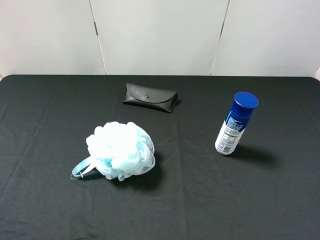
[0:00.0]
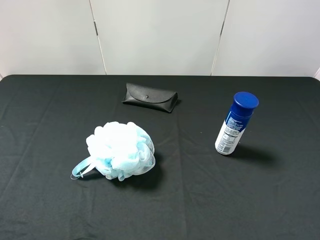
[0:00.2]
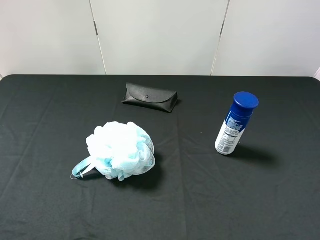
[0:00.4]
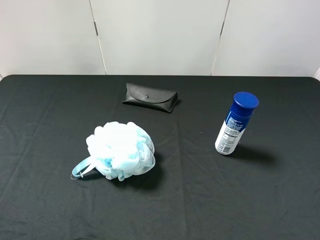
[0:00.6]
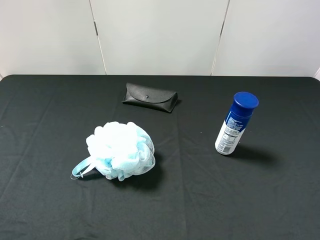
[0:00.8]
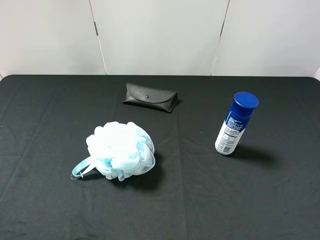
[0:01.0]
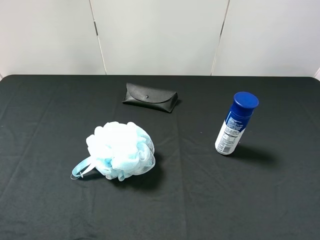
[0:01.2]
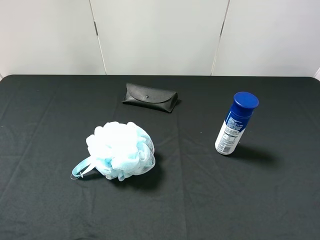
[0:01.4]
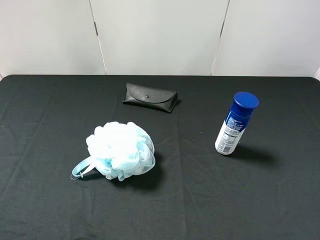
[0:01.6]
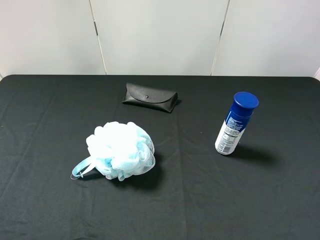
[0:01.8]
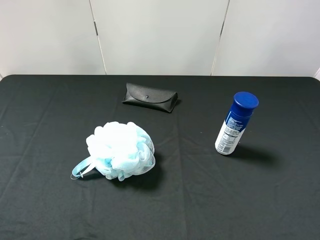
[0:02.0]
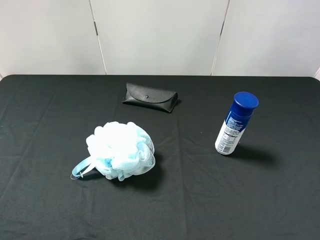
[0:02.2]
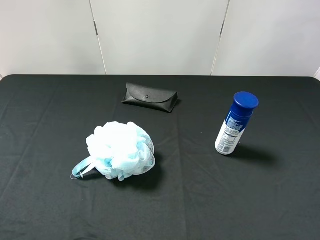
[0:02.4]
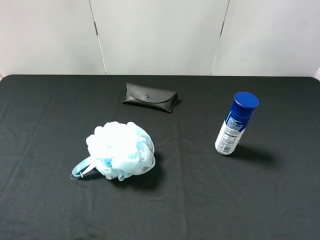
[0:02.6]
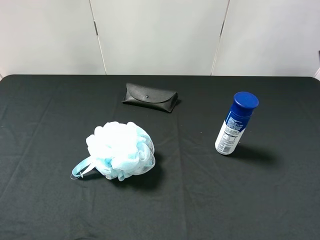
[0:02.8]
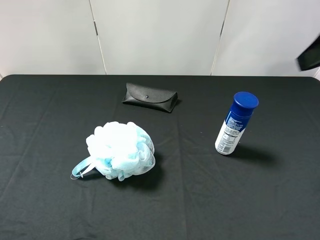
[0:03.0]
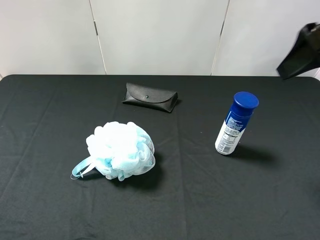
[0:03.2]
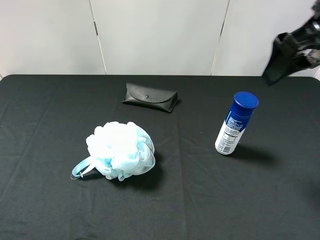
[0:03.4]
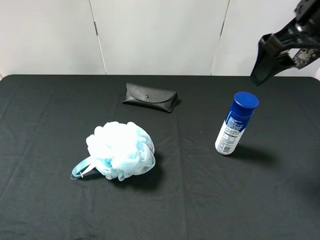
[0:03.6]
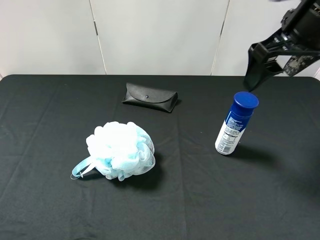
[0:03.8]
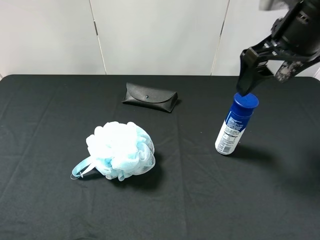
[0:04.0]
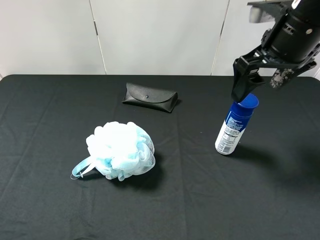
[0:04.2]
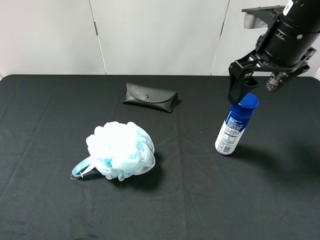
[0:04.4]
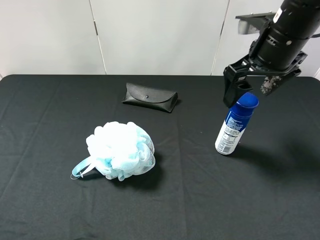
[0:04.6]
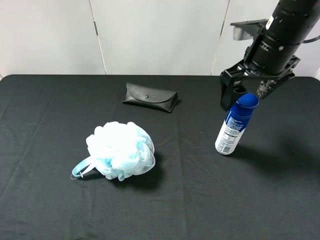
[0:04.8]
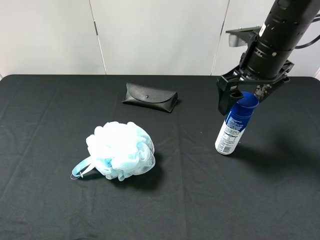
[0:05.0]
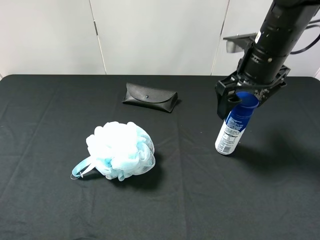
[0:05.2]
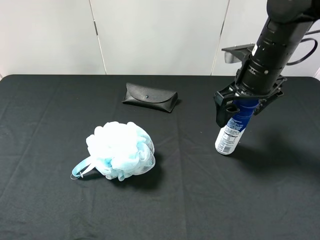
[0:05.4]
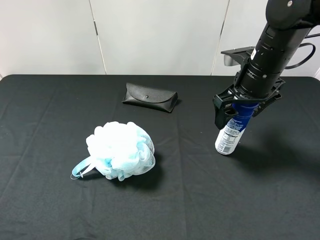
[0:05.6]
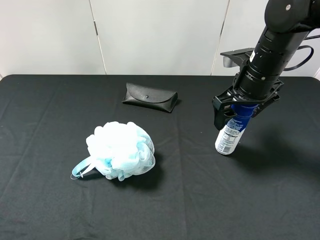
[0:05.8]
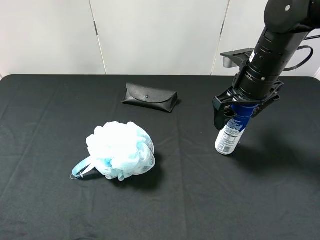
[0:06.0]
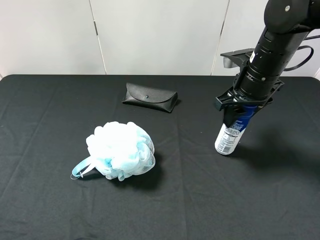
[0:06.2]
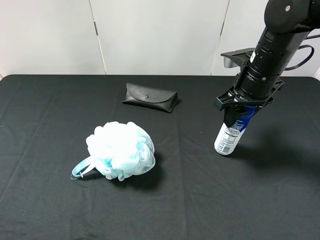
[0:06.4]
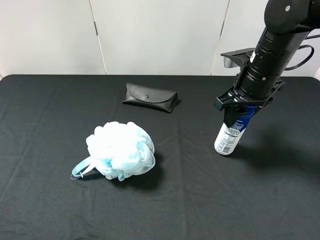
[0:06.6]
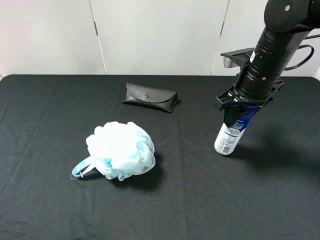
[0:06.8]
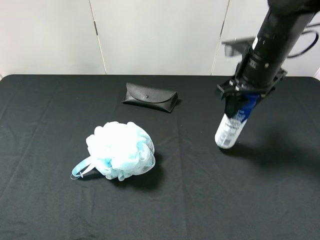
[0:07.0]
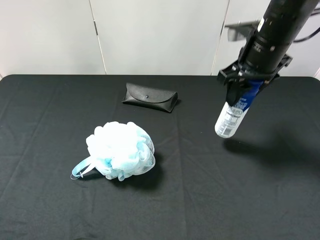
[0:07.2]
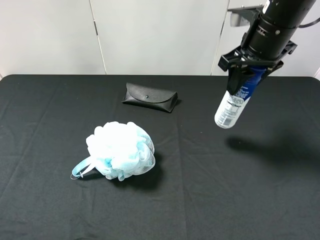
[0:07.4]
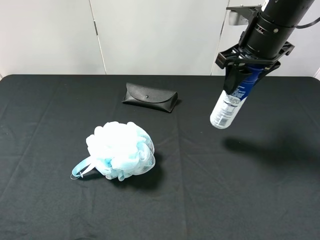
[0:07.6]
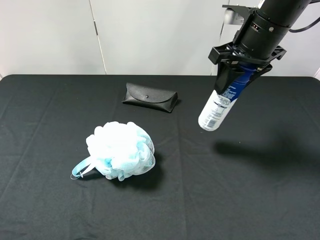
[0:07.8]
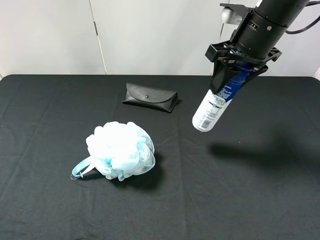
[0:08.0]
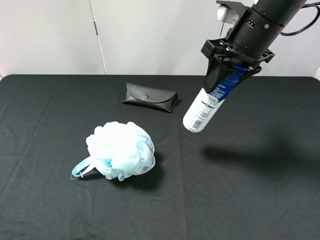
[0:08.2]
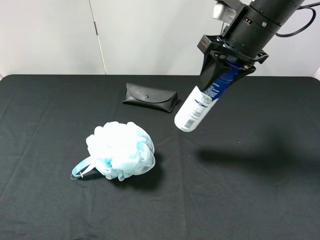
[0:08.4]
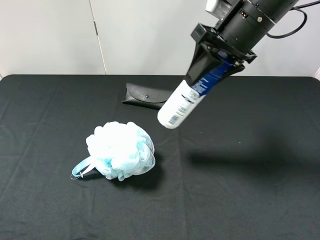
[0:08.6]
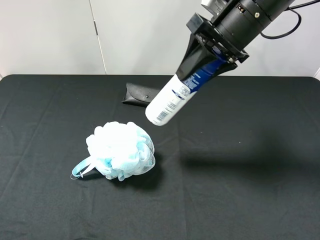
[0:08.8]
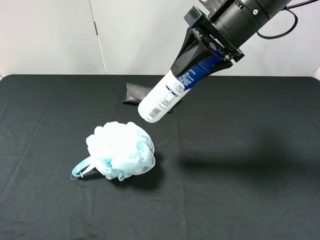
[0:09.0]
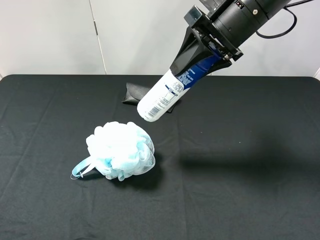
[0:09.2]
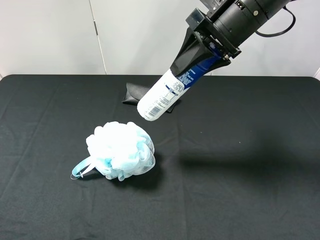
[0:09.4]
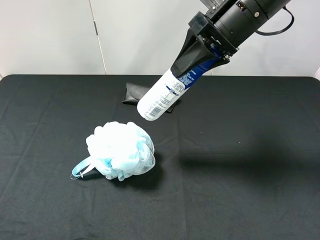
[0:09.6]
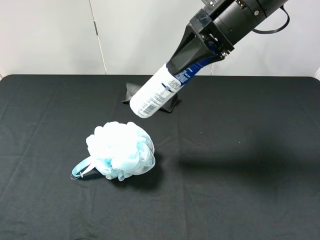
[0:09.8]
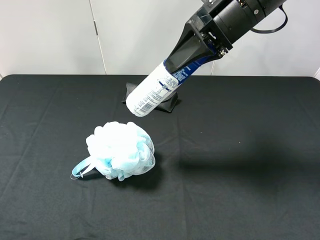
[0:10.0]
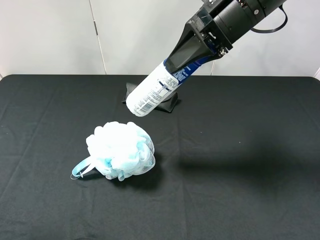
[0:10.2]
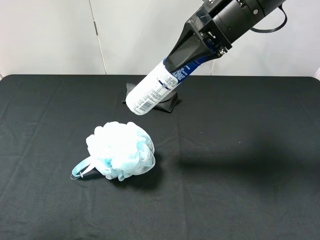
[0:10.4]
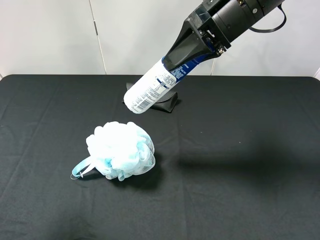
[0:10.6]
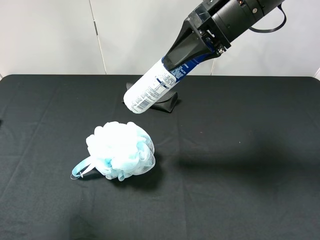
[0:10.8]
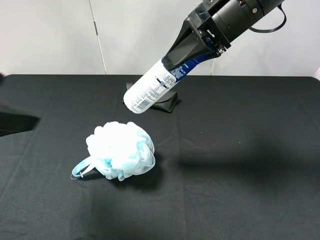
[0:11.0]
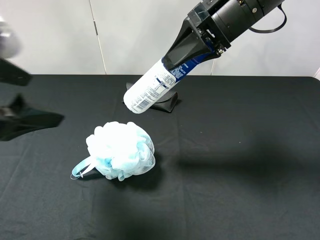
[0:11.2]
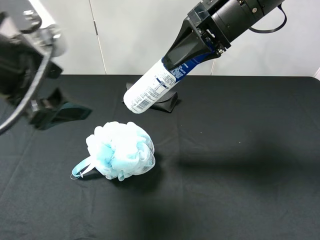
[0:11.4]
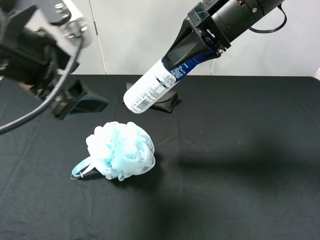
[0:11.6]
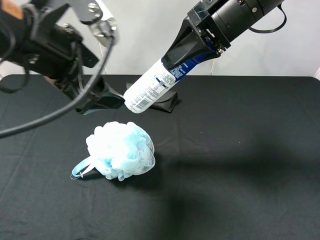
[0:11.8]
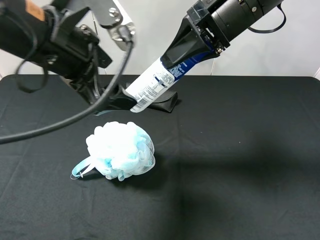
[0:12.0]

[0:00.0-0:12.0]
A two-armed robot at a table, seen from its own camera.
Task of the whole recording: use the right gripper to pick up the item and transfer it from the right gripper to the left gripper.
Step, 0:00.0 to 0:06.6: Use the right gripper to grab the yogurt on the right side of the table.
0:00.0 to 0:01.6: Both grippers stay put.
0:01.6 to 0:03.0: The right gripper shifts some 20 cm forward and upward.
0:03.0 to 0:04.4: The right gripper heads forward, to the left and downward, covering some 15 cm.
0:04.4 to 0:06.0: The right gripper shifts approximately 10 cm downward.
0:06.0 to 0:07.6: The right gripper shifts approximately 10 cm upward, and closes its fingers.
0:07.6 to 0:09.0: The right gripper moves about 5 cm.
0:09.0 to 0:10.4: The left gripper is displaced forward by approximately 5 cm.
0:10.4 to 0:12.0: The left gripper shifts about 25 cm to the right and forward.

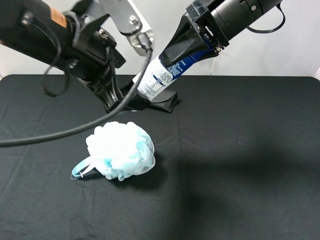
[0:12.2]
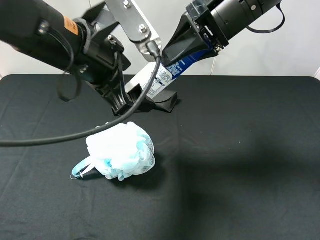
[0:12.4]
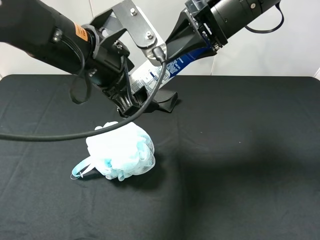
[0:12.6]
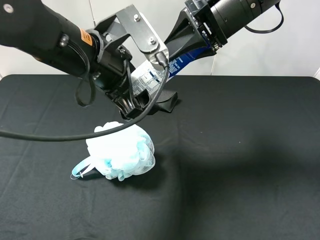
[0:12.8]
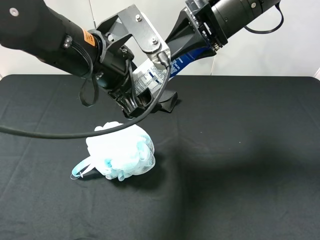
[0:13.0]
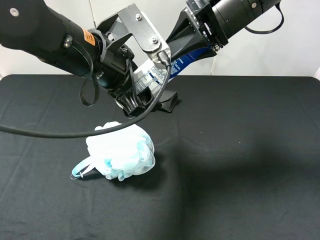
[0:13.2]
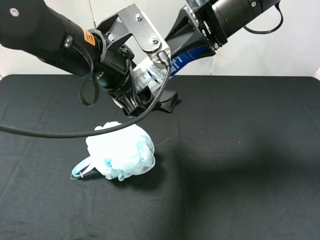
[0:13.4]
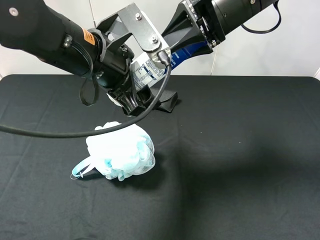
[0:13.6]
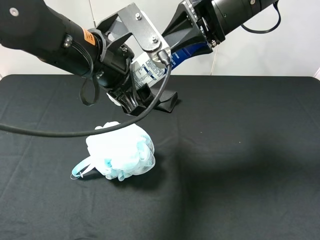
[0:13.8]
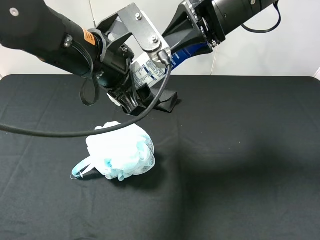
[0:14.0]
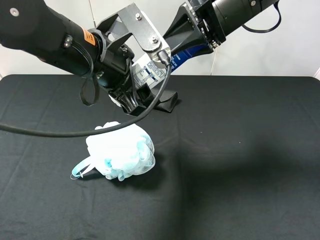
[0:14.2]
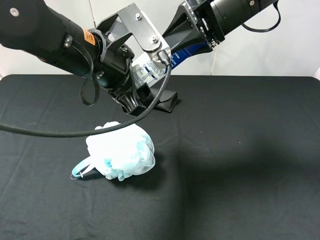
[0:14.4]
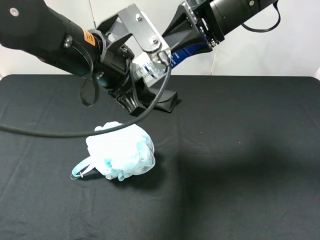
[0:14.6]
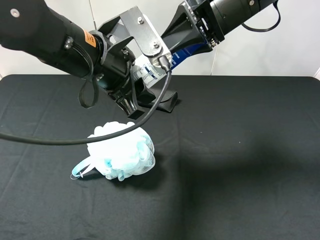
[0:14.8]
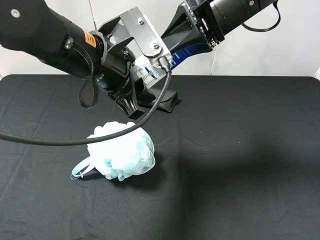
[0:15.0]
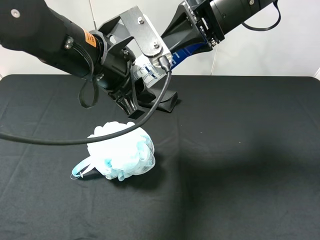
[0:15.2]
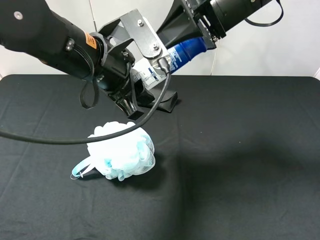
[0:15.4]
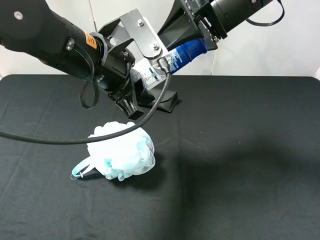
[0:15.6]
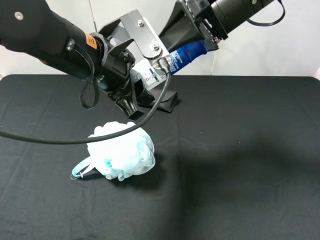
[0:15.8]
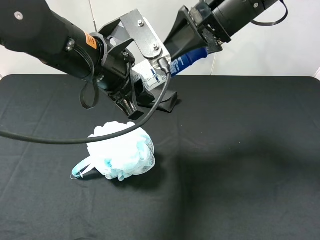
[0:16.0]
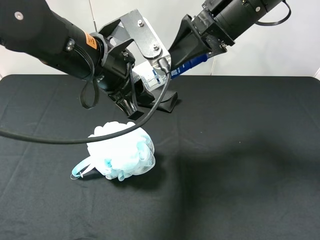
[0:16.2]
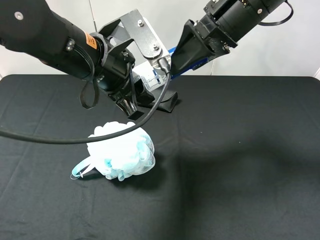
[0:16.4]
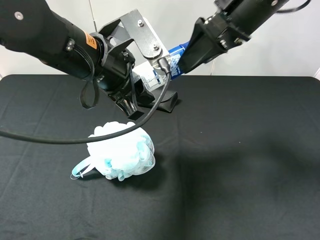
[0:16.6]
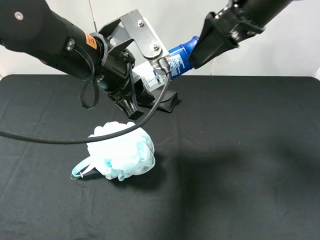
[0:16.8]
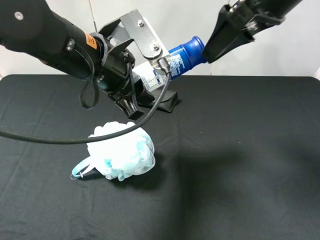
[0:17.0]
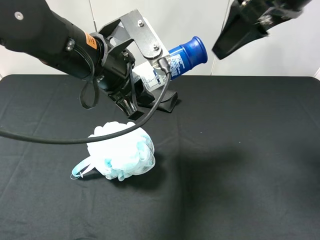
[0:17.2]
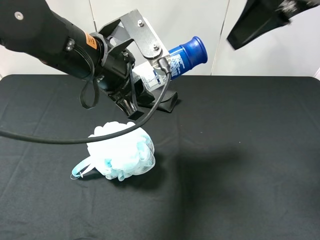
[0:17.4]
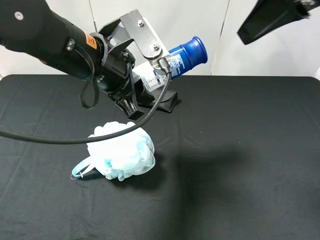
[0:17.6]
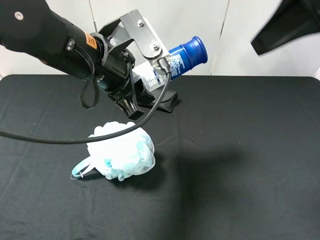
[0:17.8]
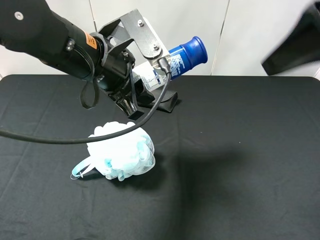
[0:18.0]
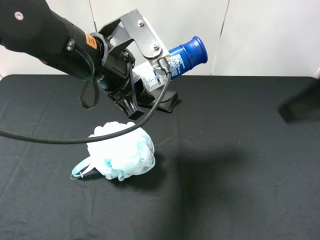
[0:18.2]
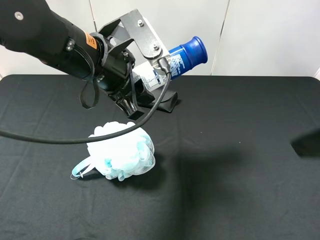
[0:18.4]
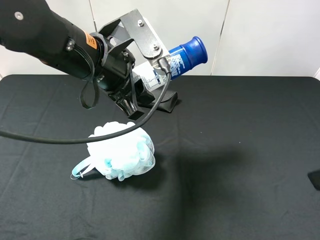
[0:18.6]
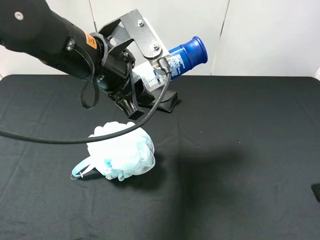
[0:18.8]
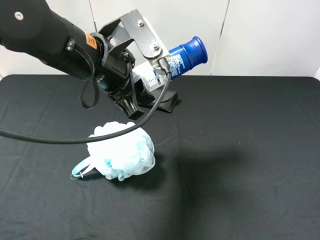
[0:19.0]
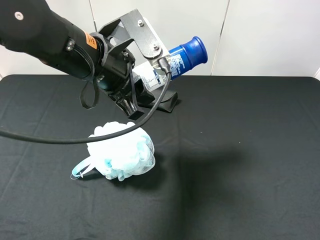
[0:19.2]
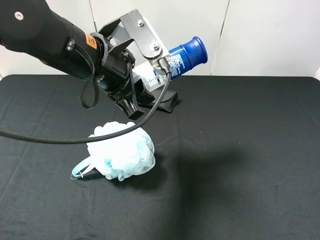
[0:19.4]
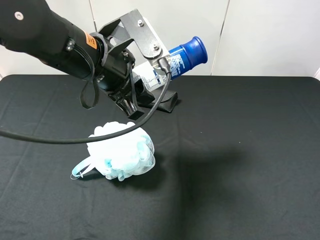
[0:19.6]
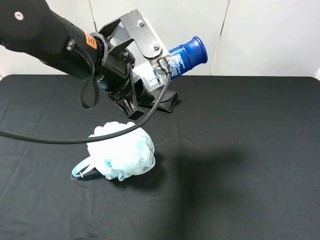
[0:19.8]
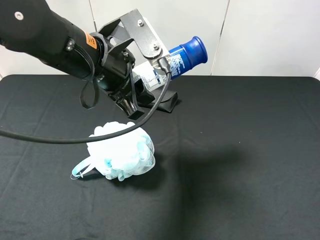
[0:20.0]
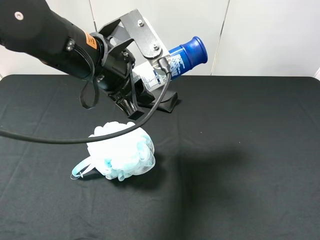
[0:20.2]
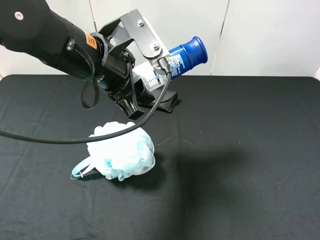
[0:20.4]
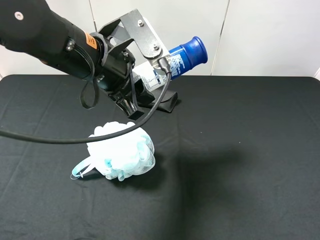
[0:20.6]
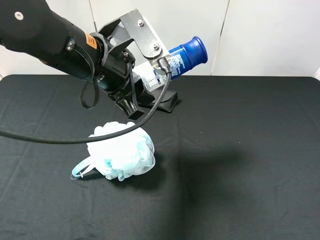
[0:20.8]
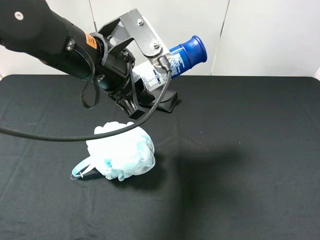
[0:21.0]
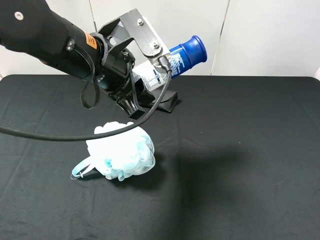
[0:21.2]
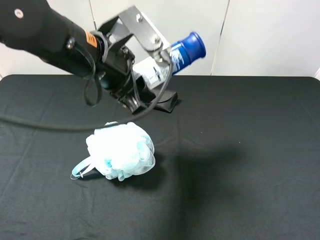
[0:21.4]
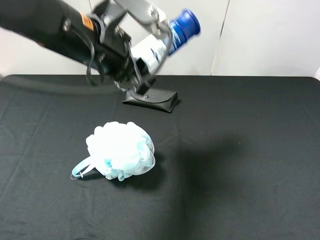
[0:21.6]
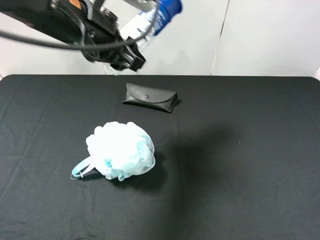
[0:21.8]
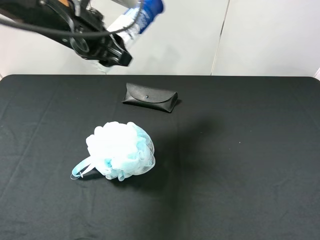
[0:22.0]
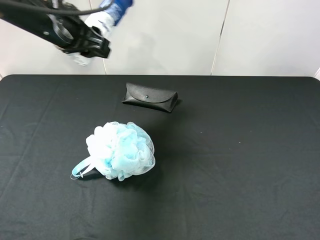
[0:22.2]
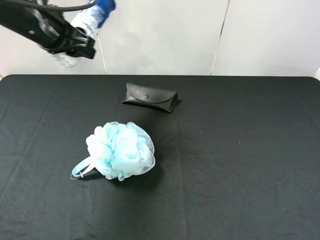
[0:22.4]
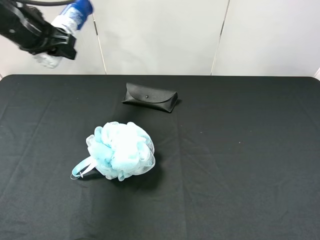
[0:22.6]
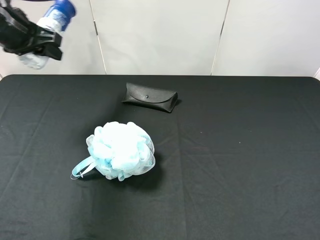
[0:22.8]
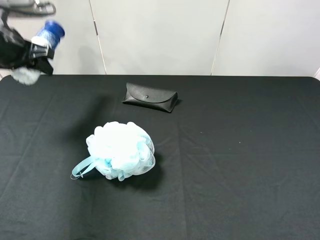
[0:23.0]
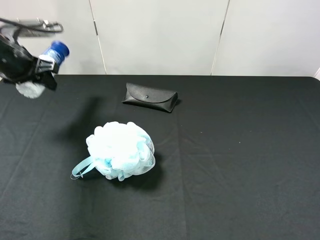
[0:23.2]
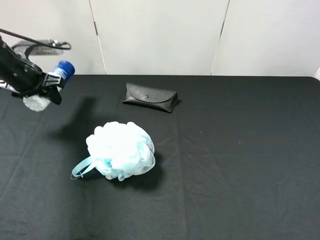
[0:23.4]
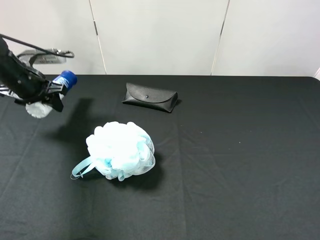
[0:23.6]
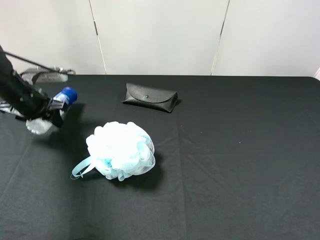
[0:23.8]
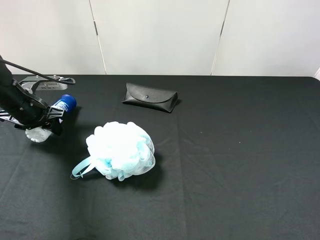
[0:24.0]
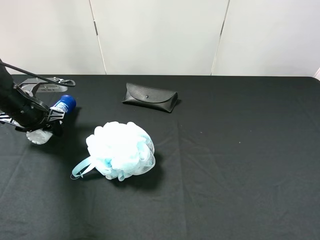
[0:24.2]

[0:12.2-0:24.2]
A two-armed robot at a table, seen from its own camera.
Task of the whole recording: use the right gripper to pick up the item and transfer it from the right gripper to the left gripper.
Step, 0:12.2 to 0:15.6: Pass the yogurt to the left gripper.
0:12.2 to 0:13.8: The grippers stay close to where they were, moving slightly.
0:13.8 to 0:15.2: The left gripper closes its fingers.
0:15.2 to 0:16.6: The right gripper opens its fingers.
0:16.6 to 0:18.2: The right gripper is displaced backward and to the right by roughly 20 cm.
0:18.2 to 0:19.8: The right gripper is displaced backward, downward and to the right by some 15 cm.
0:19.8 to 0:21.2: The grippers move only a little.
0:21.2 to 0:22.6: The left gripper goes about 20 cm to the left and forward.
0:22.6 to 0:24.2: The left gripper goes some 15 cm downward.
